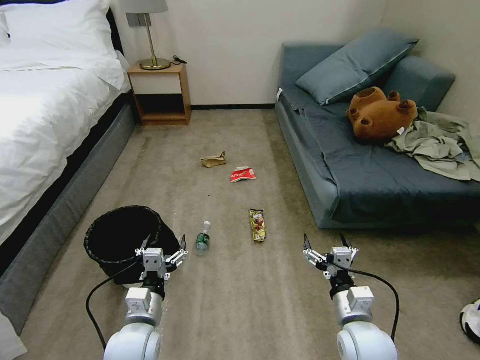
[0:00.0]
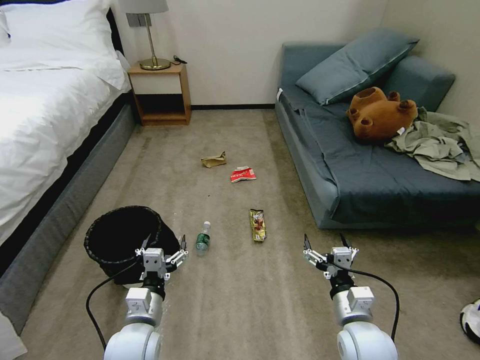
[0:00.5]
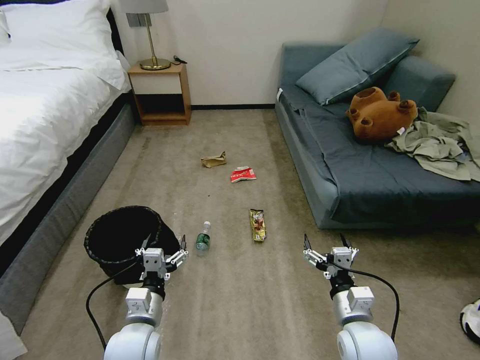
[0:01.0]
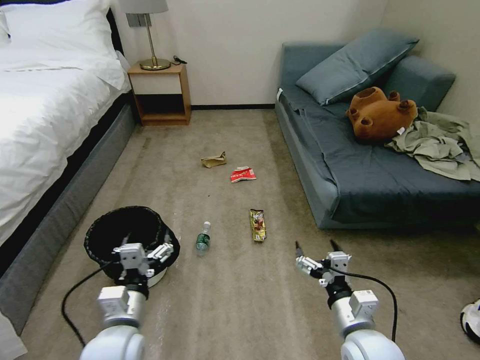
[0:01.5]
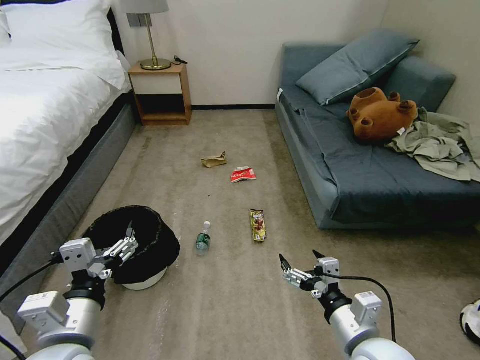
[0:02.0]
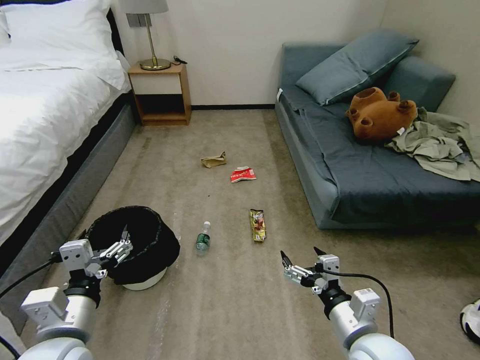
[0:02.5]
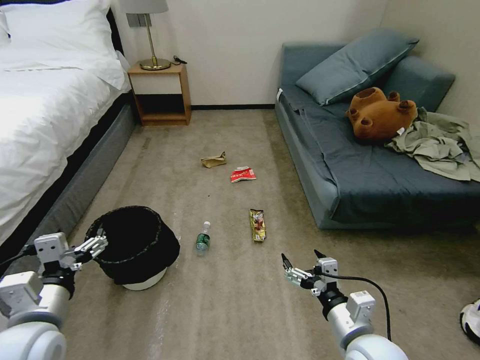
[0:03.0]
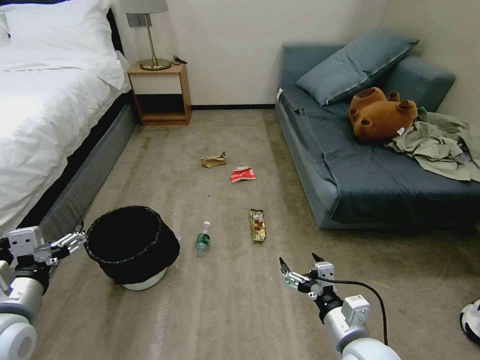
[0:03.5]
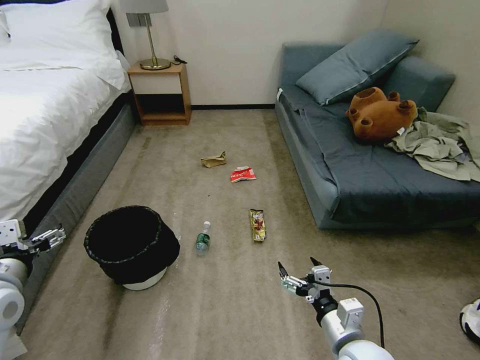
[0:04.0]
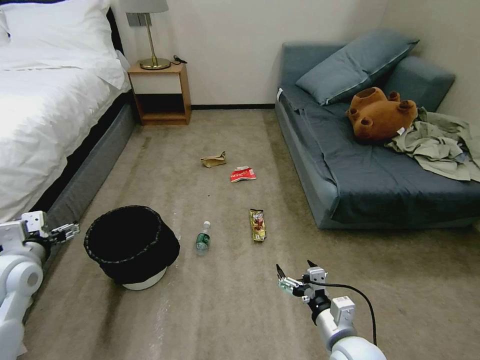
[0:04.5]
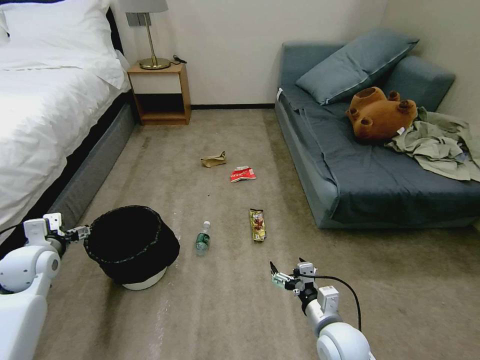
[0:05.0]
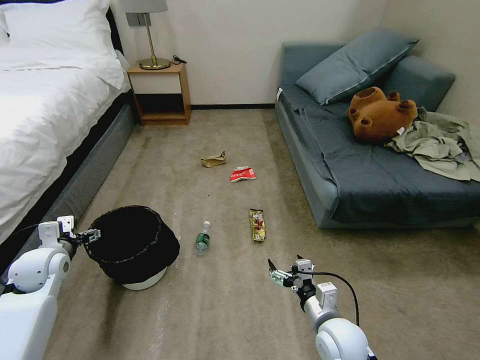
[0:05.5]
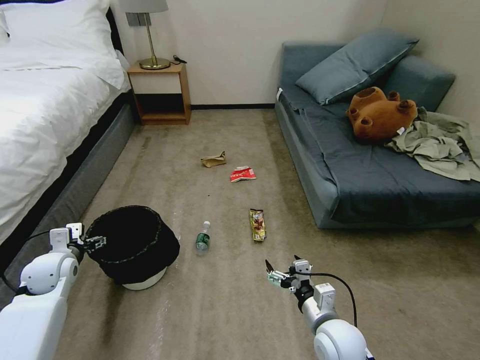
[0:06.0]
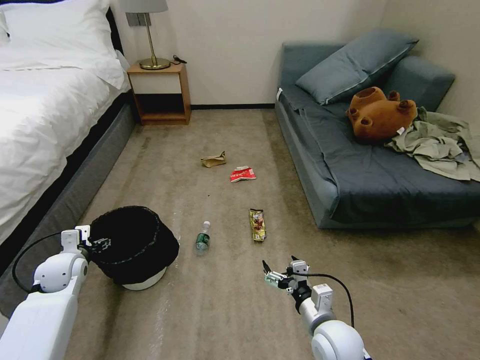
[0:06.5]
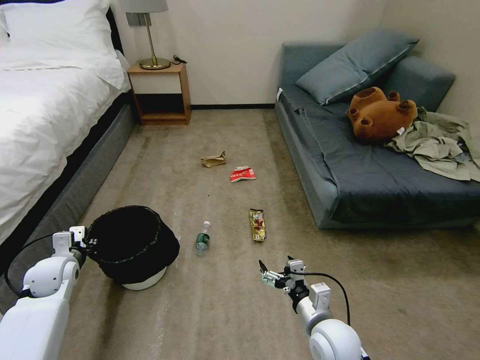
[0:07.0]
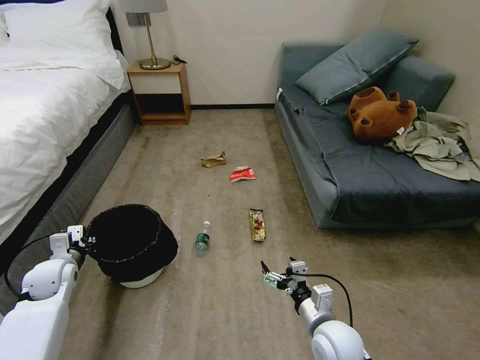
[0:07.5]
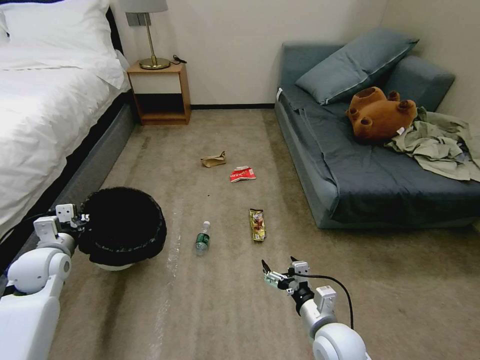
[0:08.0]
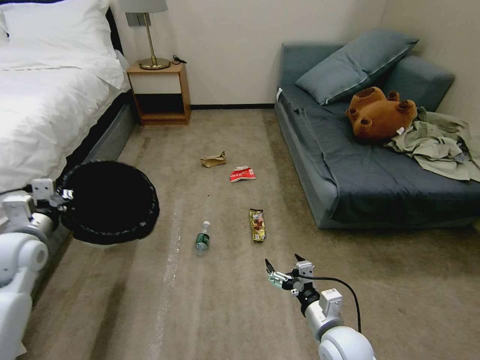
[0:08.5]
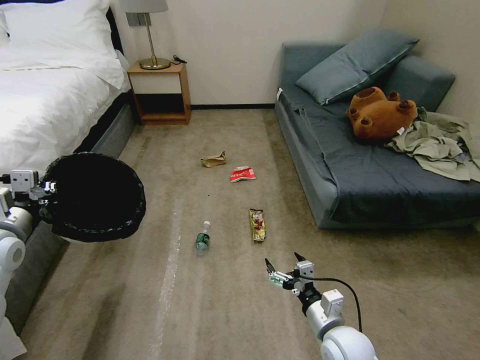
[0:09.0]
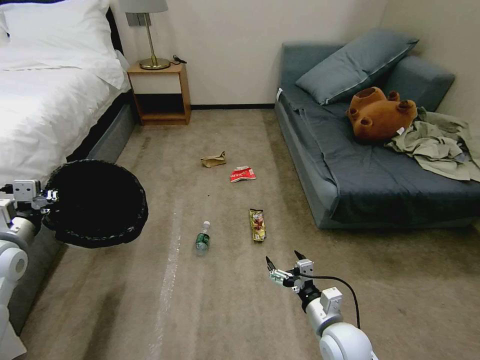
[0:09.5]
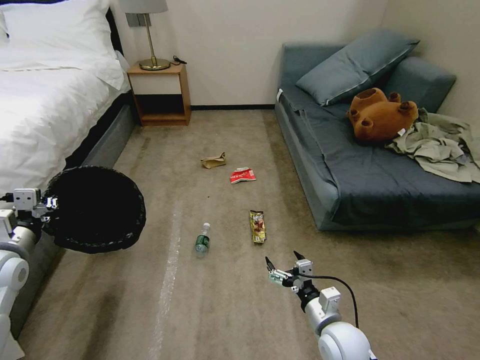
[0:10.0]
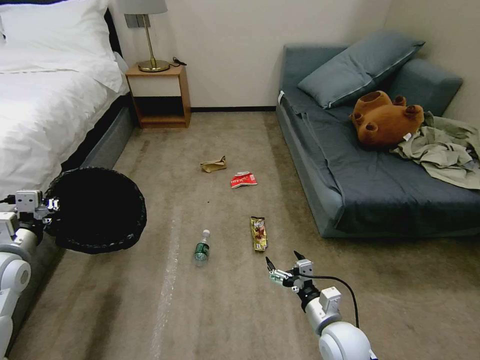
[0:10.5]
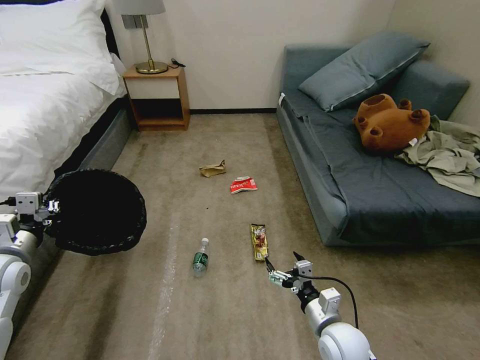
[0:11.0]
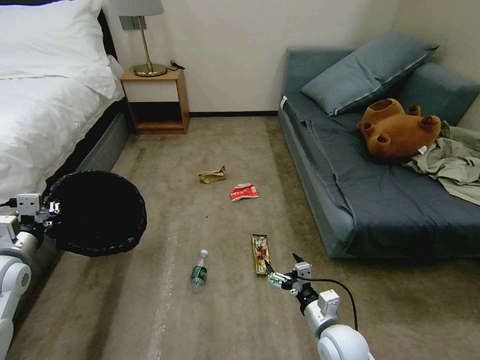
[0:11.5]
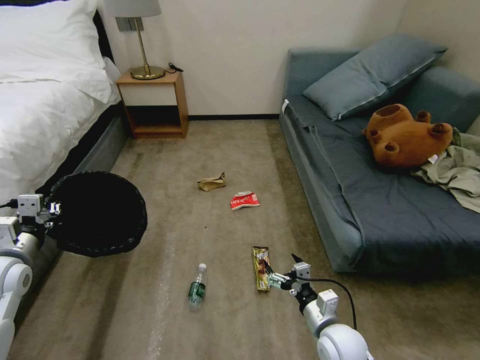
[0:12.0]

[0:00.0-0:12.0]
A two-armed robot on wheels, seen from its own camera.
Task of the whole recording: Pick up the trash bin, then pick up the garbage on the floor and place it into the trash bin.
0:02.0 to 0:04.0: The left gripper travels to the left and forward by about 15 cm. The right gripper goes roughly 5 cm downward.
0:04.0 to 0:06.0: The left gripper moves downward and forward, roughly 20 cm, while the right gripper ends up approximately 5 cm from where it was.
0:06.0 to 0:08.0: The left gripper closes.
0:08.0 to 0:10.0: The left gripper travels upward and backward by some 10 cm.

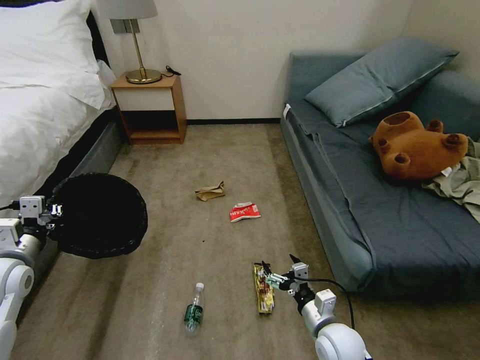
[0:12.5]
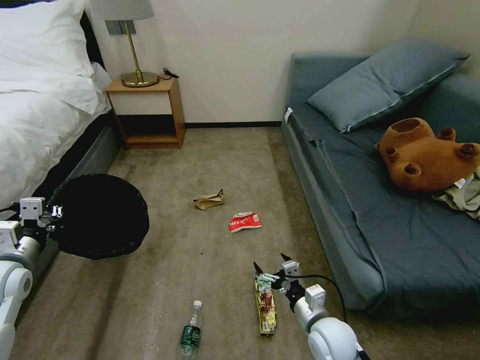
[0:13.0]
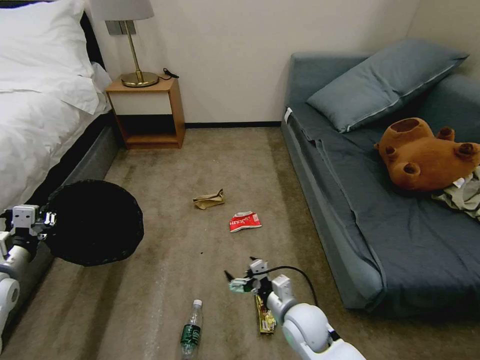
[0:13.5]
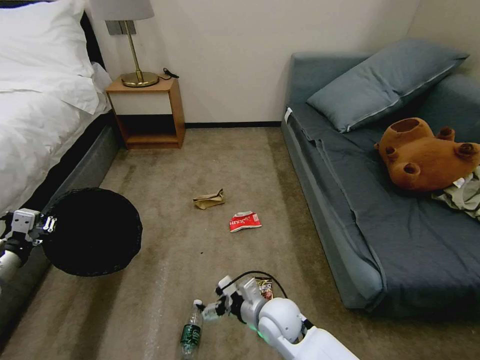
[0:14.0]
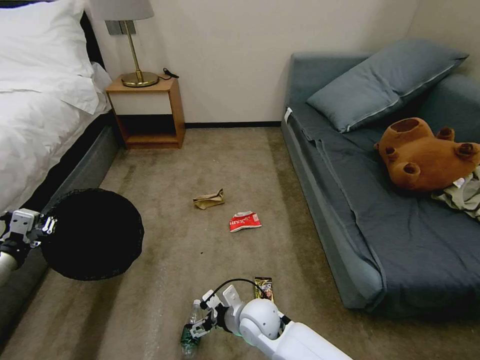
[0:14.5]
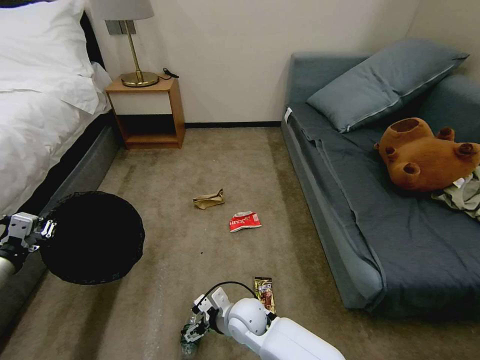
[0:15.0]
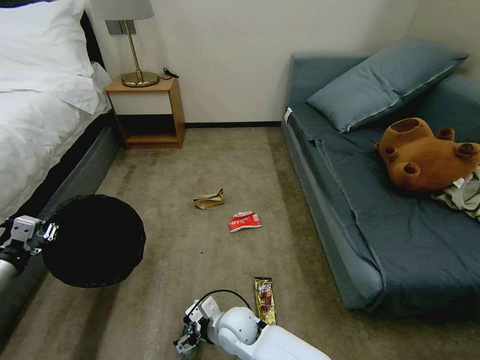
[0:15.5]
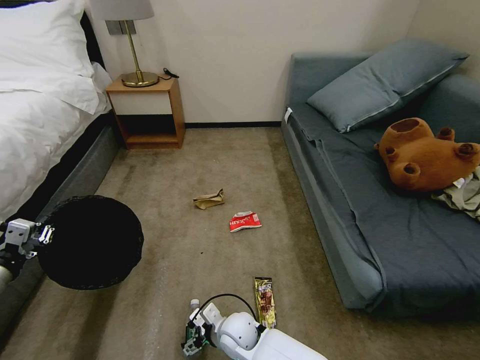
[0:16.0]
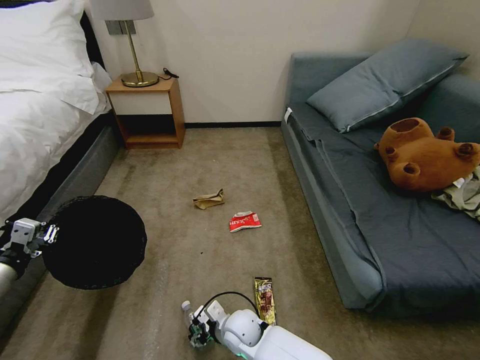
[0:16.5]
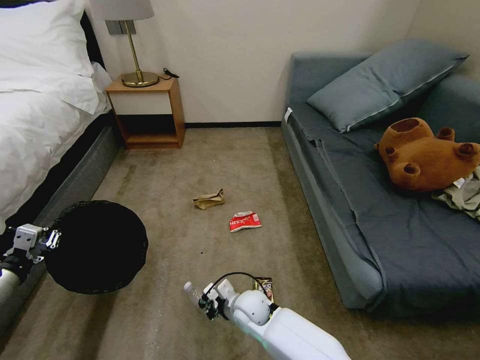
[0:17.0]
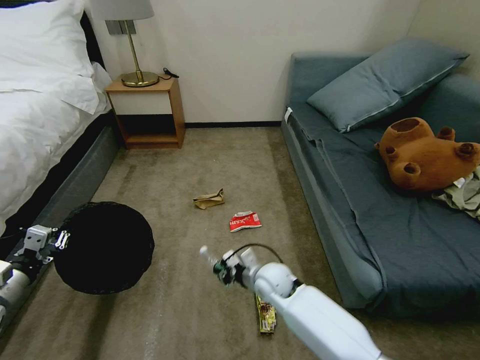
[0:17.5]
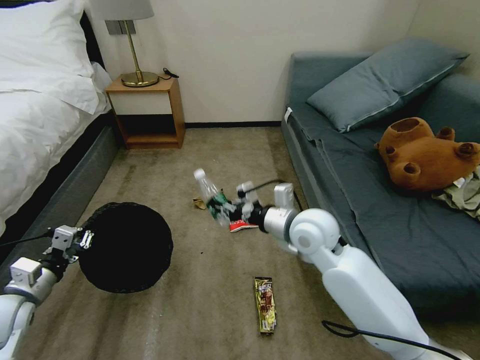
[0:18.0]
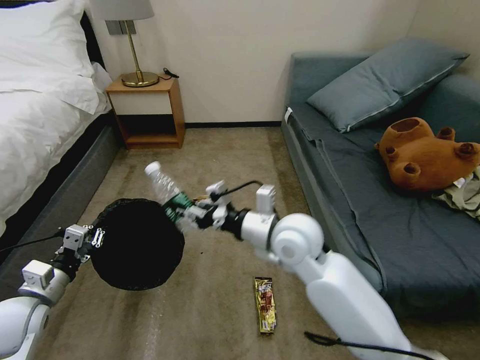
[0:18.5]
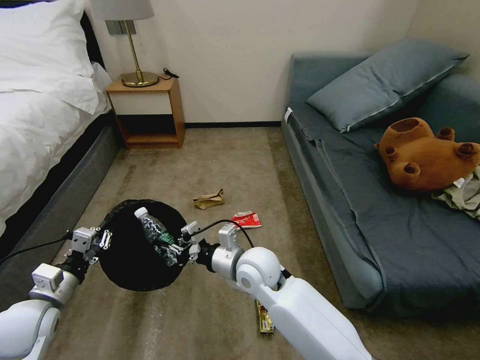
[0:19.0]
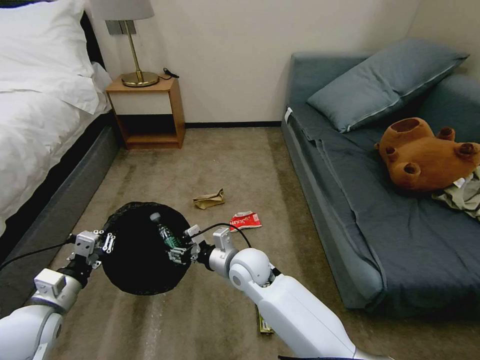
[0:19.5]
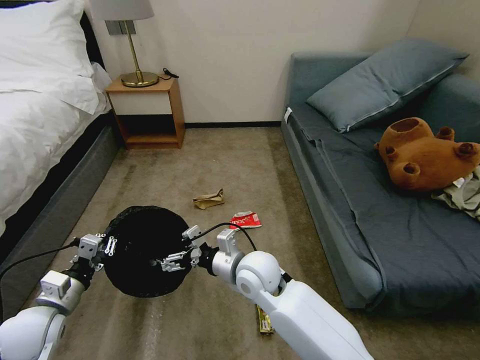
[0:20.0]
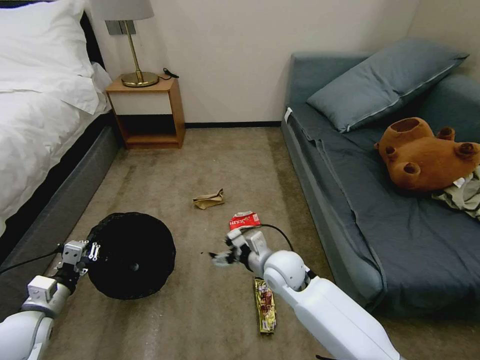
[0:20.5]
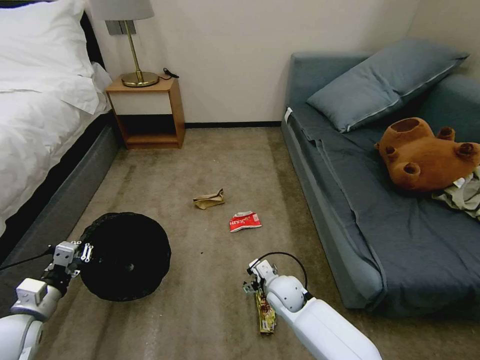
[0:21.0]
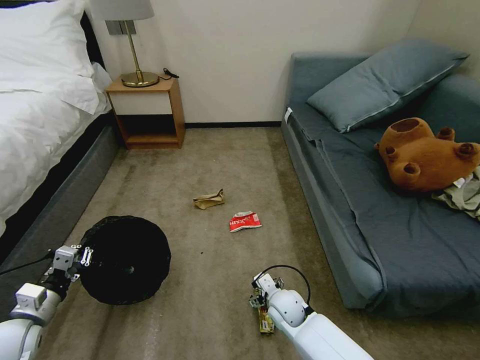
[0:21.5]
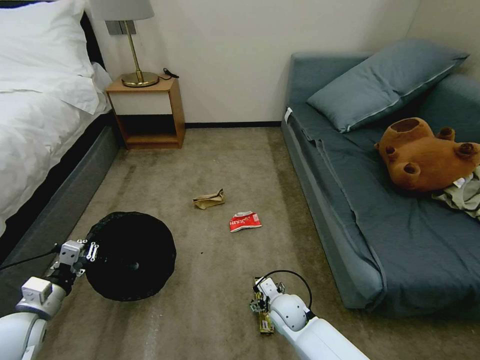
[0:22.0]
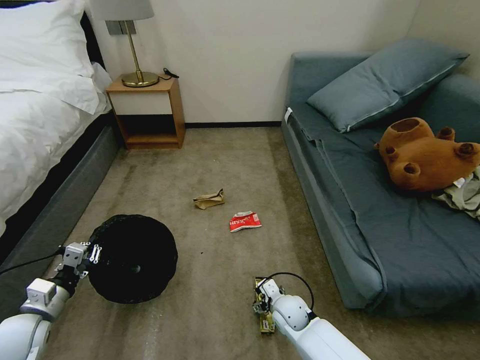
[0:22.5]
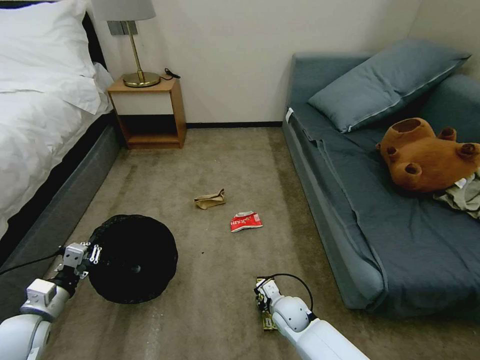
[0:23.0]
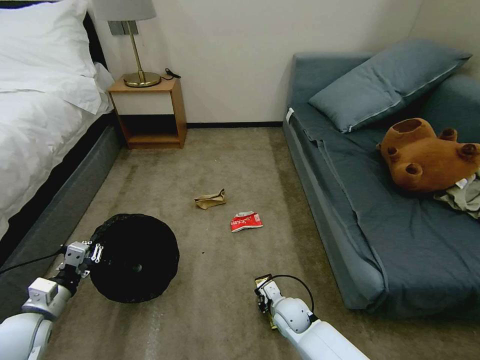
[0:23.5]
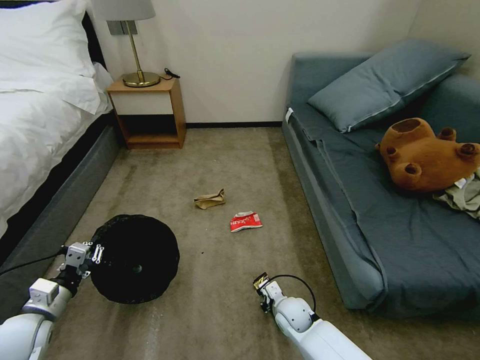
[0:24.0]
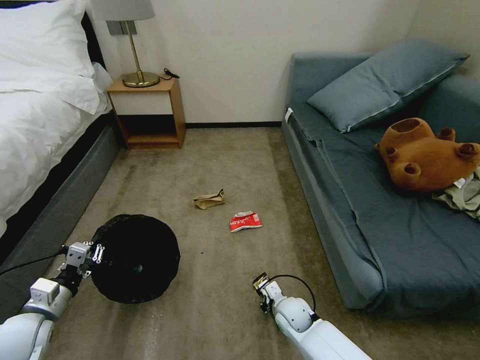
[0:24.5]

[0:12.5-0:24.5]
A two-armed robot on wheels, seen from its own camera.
Task of the whole recording: Pick up the trash bin, then pick up the garbage on the floor and place it into the trash bin.
0:12.5 to 0:14.5: The left gripper is displaced to the left by some 5 cm. The right gripper travels to the left by approximately 15 cm.
0:14.5 to 0:16.5: The right gripper is displaced downward by some 5 cm.
0:16.5 to 0:18.5: The left gripper heads to the right, covering some 10 cm, while the right gripper goes some 30 cm upward, and closes its fingers.
0:18.5 to 0:20.5: The right gripper is displaced downward by some 15 cm, and opens. Meanwhile the left gripper ends up roughly 5 cm from where it was.
0:20.5 to 0:22.5: The right gripper shifts about 15 cm downward.
0:22.5 to 0:24.5: The right gripper closes its fingers.

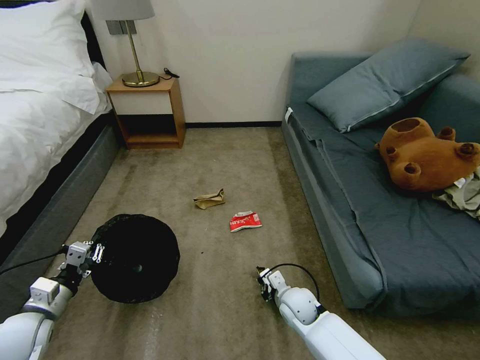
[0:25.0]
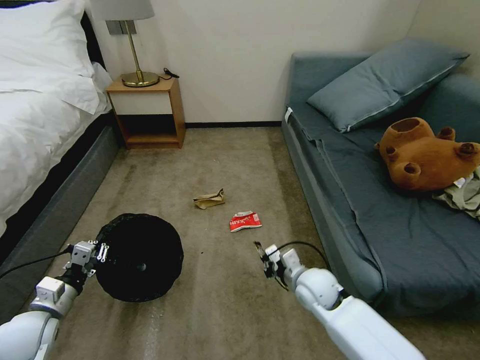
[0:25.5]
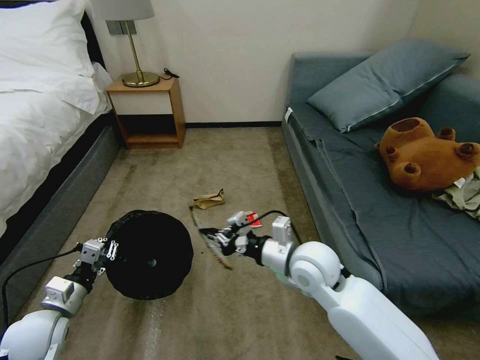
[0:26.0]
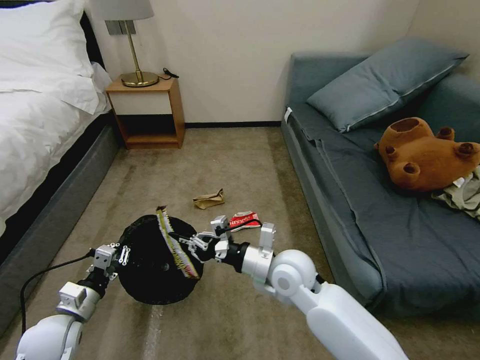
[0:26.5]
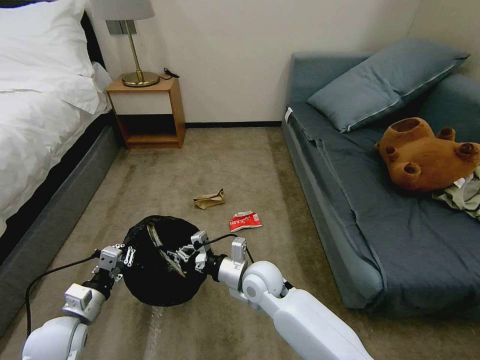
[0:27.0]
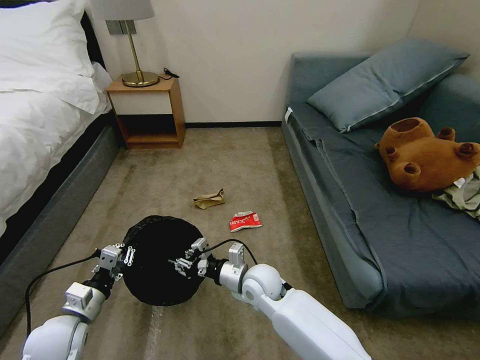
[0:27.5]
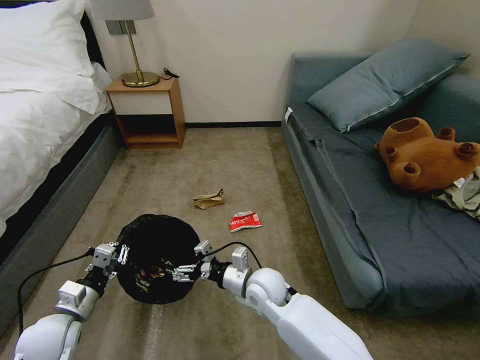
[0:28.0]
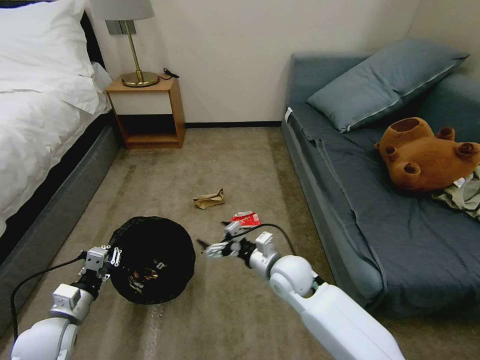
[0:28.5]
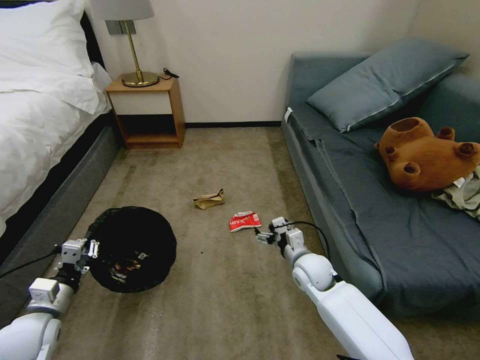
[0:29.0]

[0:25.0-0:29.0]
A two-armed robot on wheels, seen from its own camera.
Task of the whole recording: Pick up the trash bin, then pick up the garbage on the floor and place it into the trash bin.
0:25.0 to 0:27.0: The left gripper is displaced to the right by some 5 cm; the right gripper is displaced upward and to the left by about 15 cm.
0:27.0 to 0:29.0: The left gripper heads to the left, covering about 5 cm, while the right gripper shifts about 15 cm to the right, and opens up.
